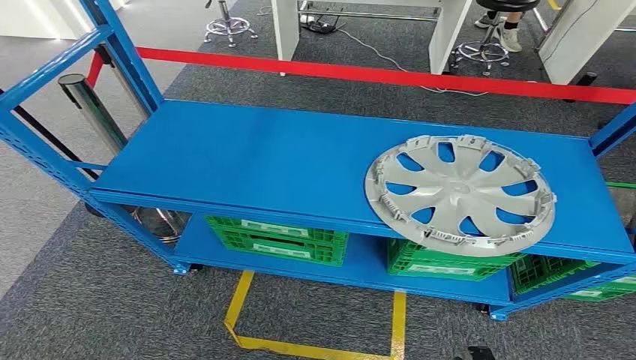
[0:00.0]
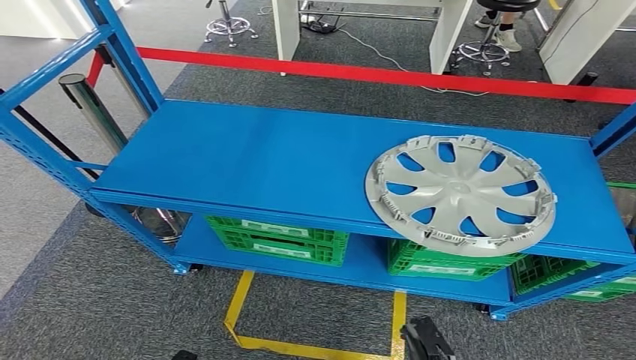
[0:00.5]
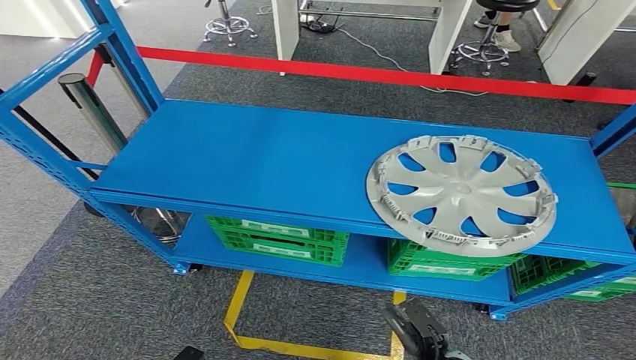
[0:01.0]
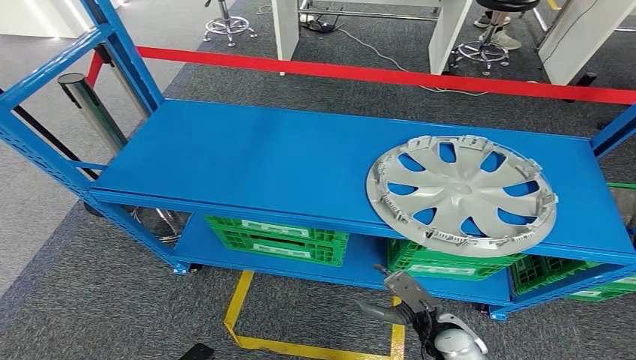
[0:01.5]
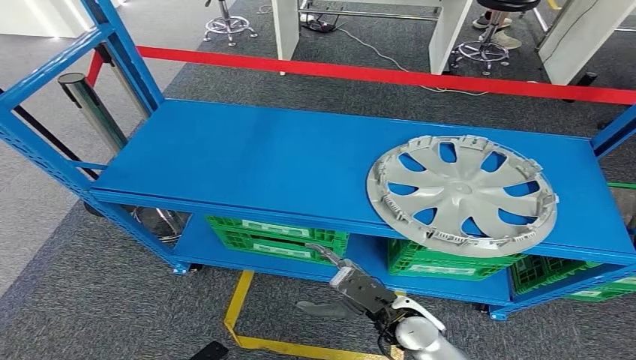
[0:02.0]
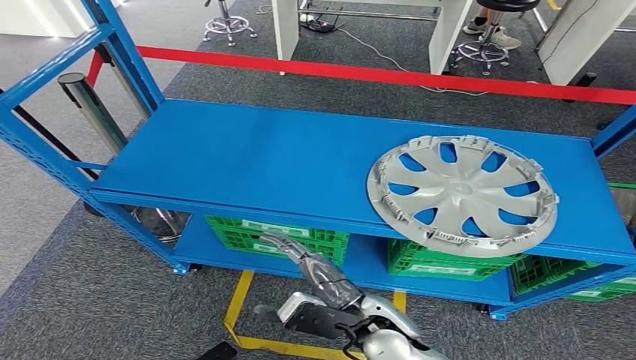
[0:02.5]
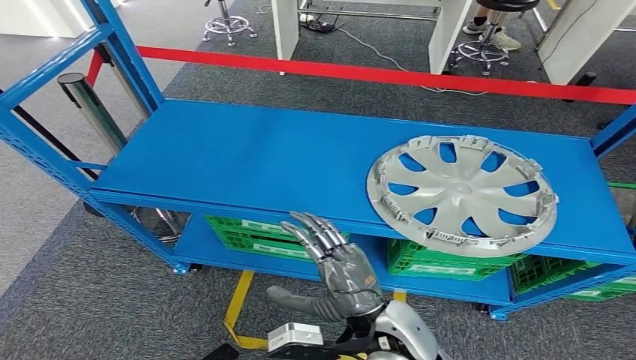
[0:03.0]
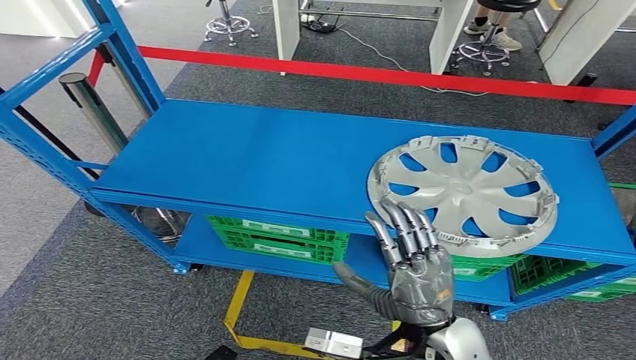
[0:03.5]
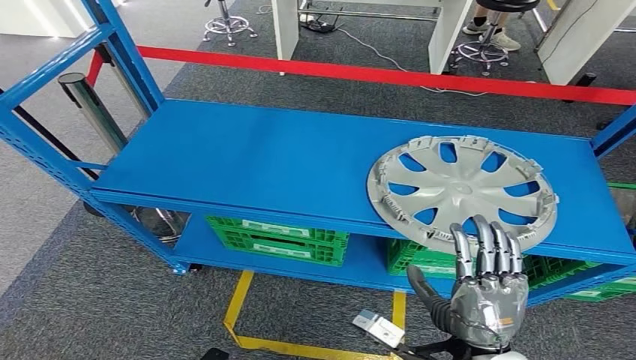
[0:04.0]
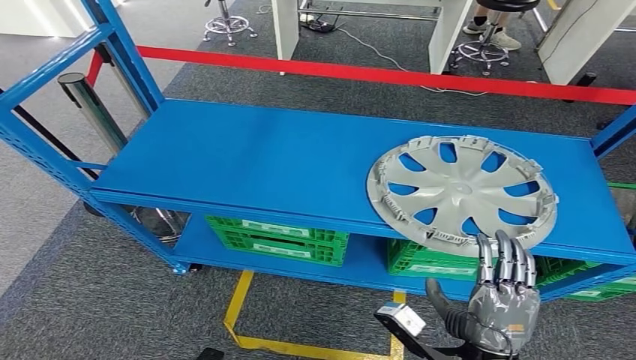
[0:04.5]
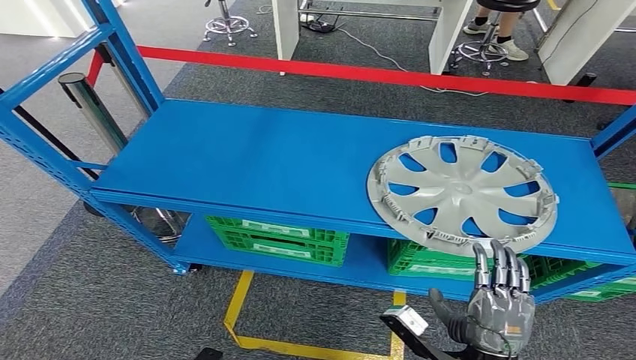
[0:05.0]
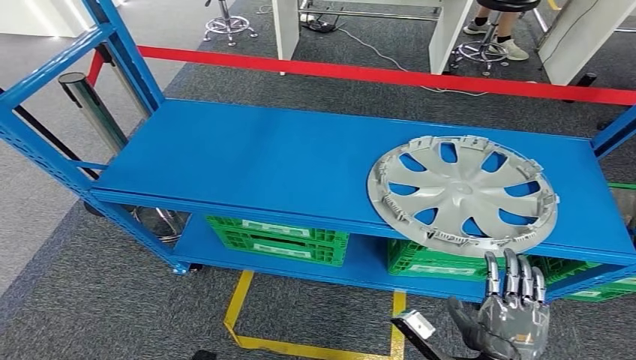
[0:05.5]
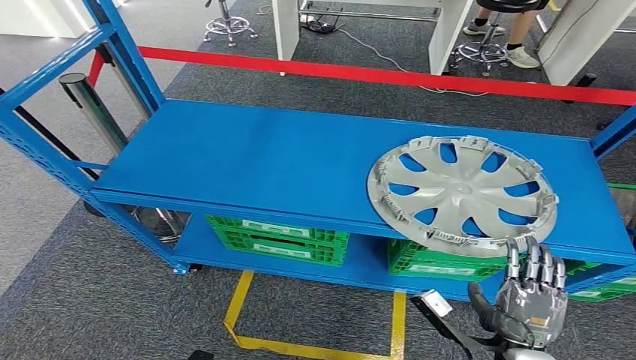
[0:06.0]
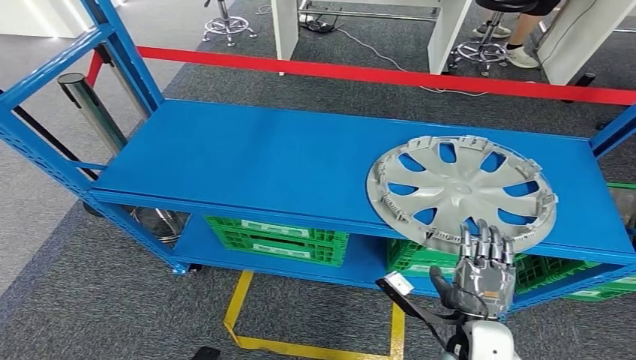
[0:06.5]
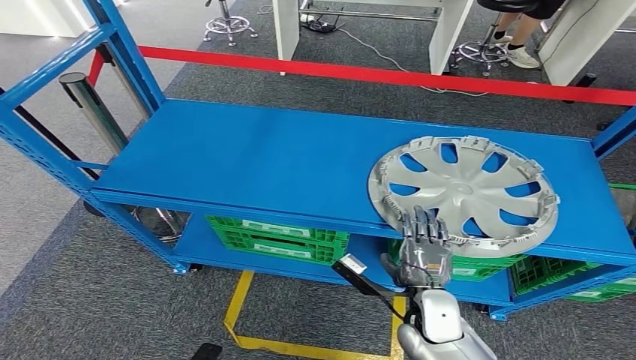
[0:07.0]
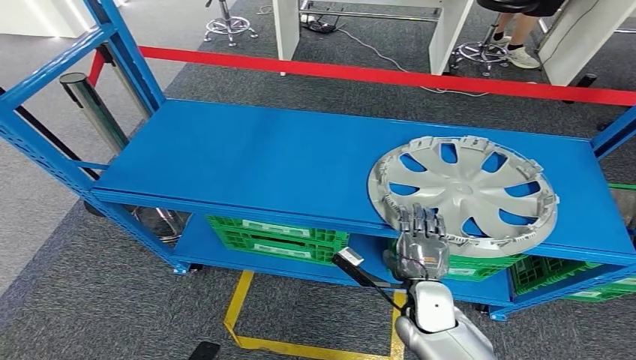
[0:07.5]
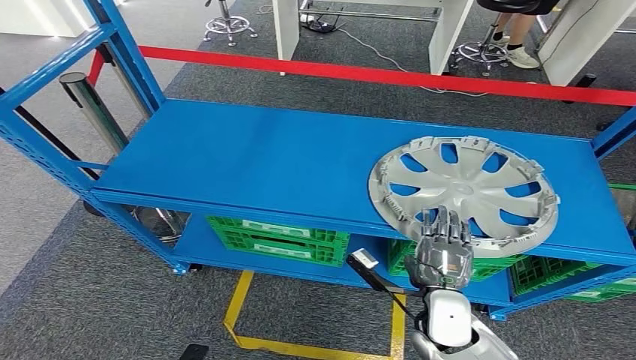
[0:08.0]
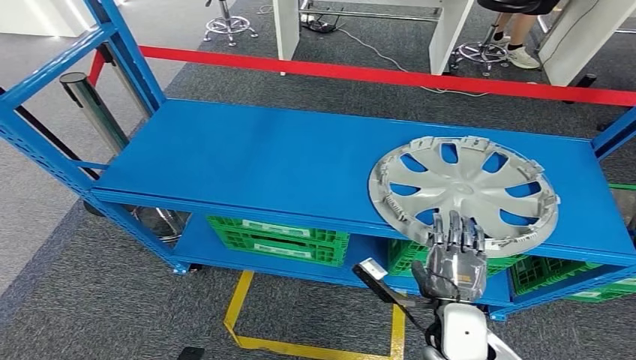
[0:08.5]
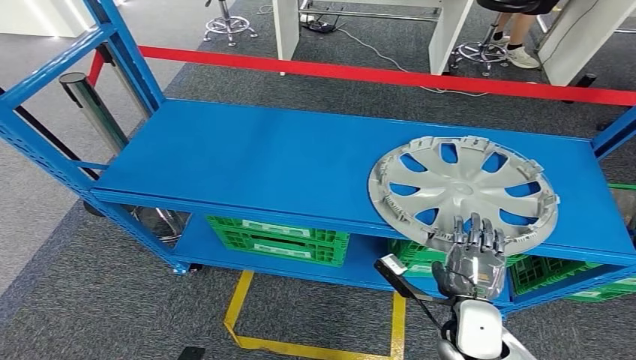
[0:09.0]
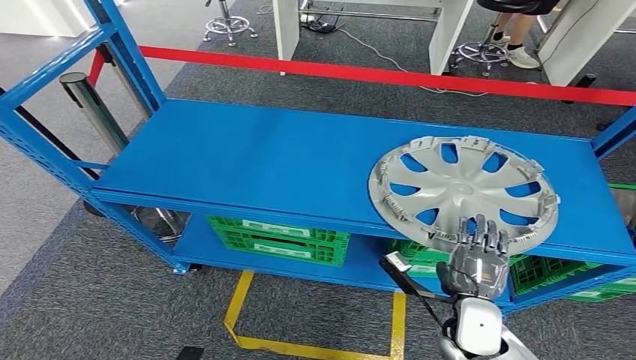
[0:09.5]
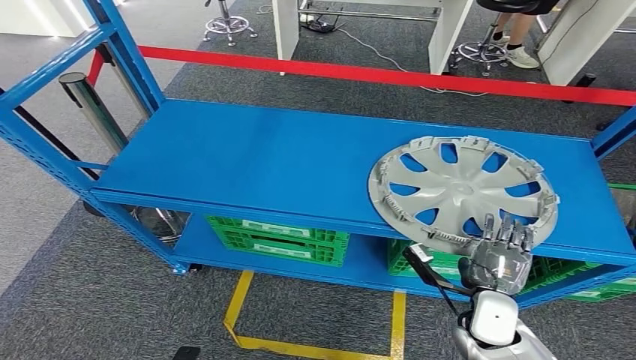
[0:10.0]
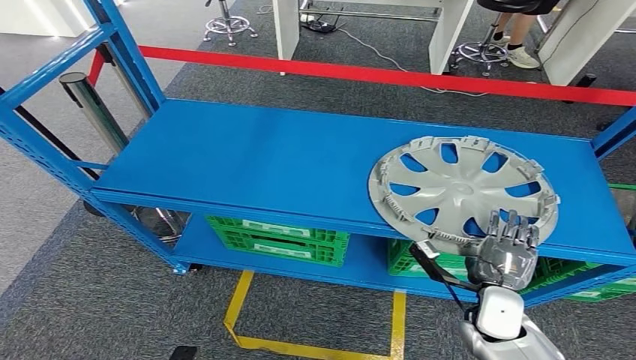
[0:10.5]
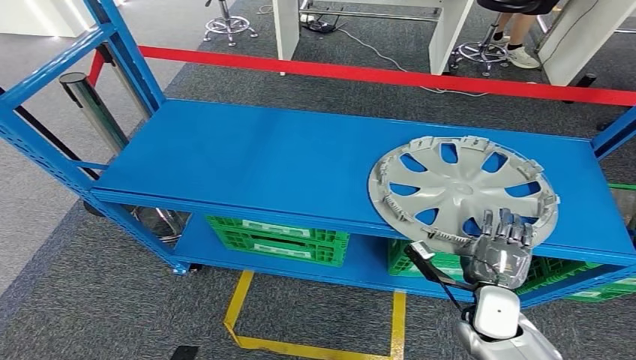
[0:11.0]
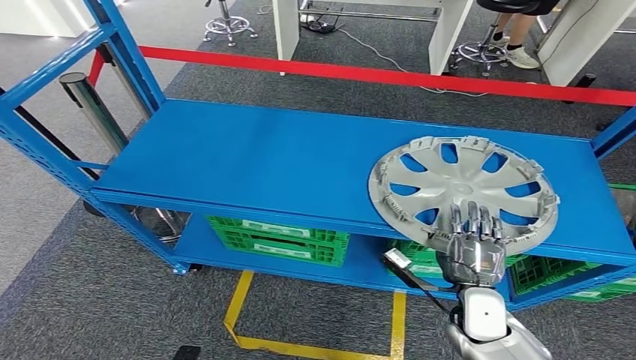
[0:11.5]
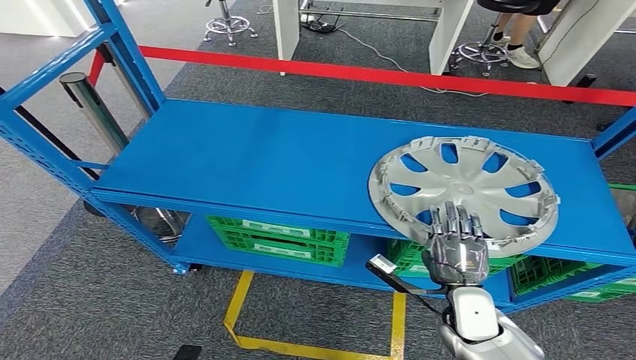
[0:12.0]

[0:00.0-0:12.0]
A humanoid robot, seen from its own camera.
0:02.0 to 0:04.0: The right hand moves upward and backward, some 15 cm.
0:04.0 to 0:06.0: The right hand is displaced downward and to the right by roughly 10 cm.
0:06.0 to 0:08.0: The right hand moves forward and to the left, about 10 cm.
0:08.0 to 0:10.0: The right hand goes some 10 cm to the right.
0:10.0 to 0:12.0: The hands stay close to where they were, moving slightly.

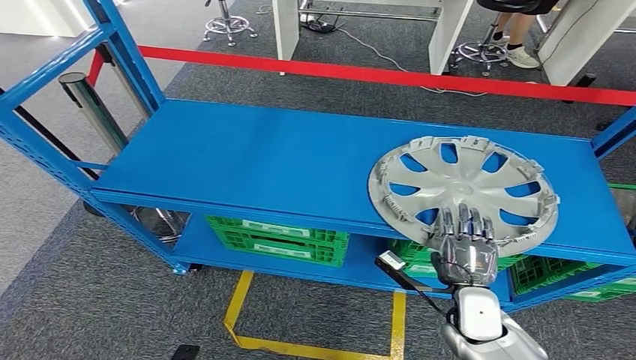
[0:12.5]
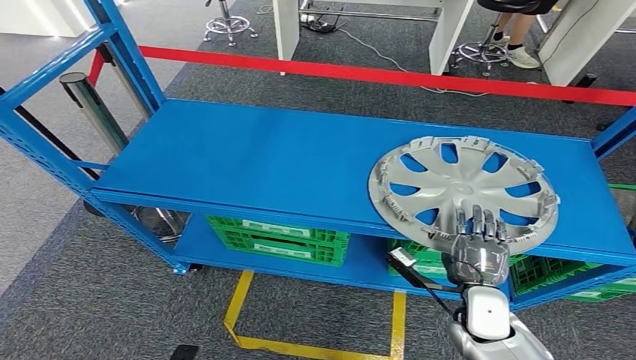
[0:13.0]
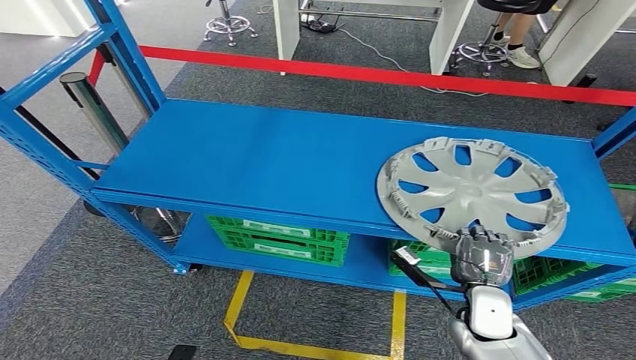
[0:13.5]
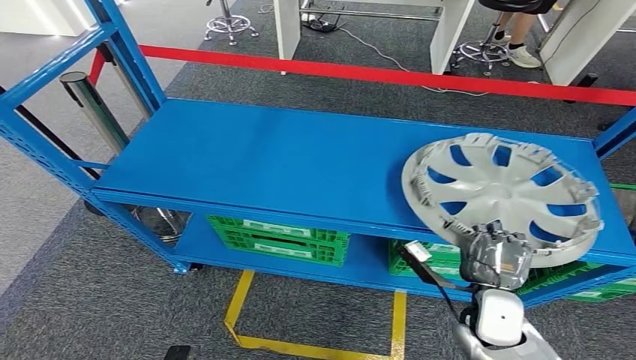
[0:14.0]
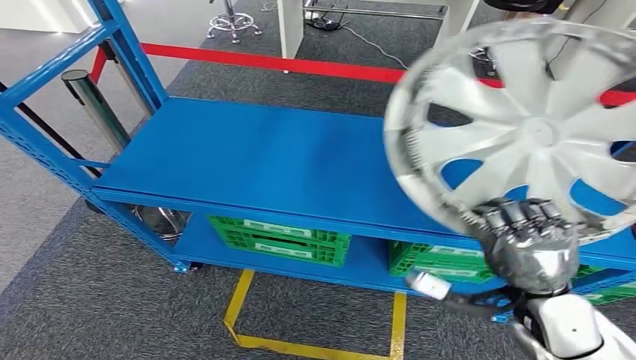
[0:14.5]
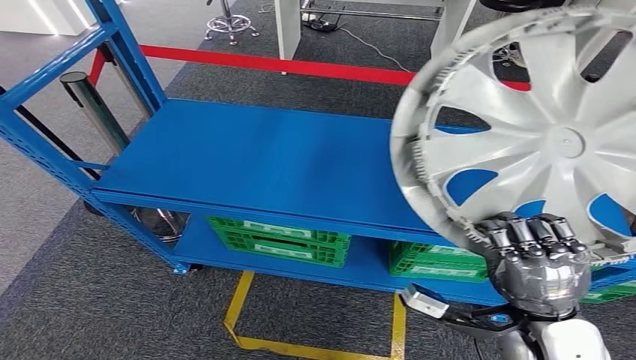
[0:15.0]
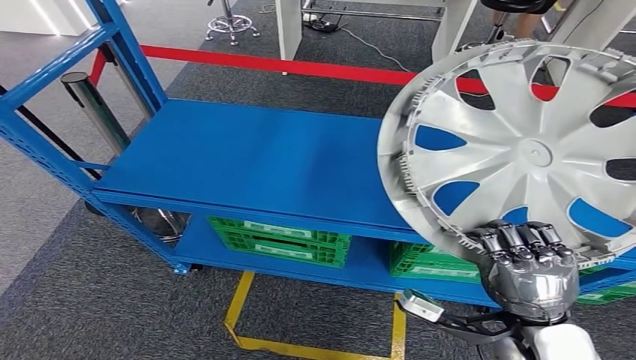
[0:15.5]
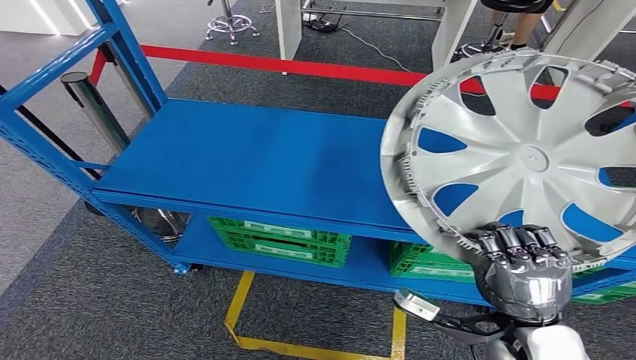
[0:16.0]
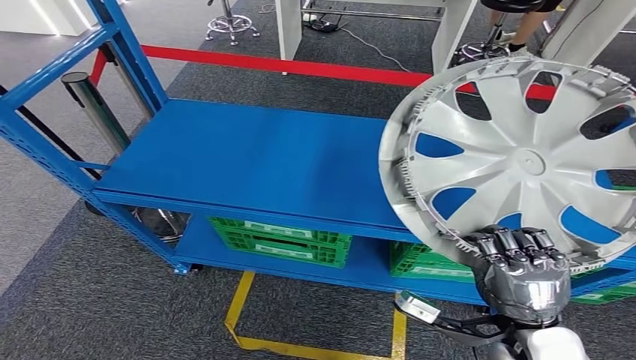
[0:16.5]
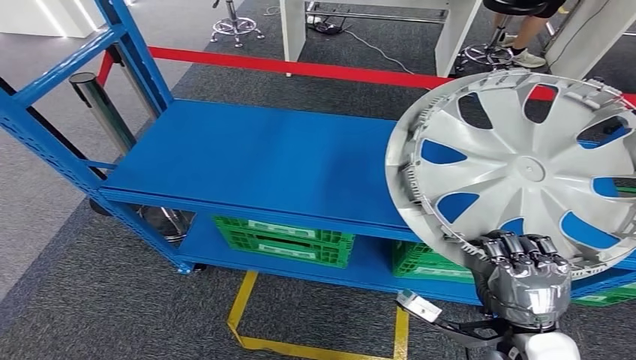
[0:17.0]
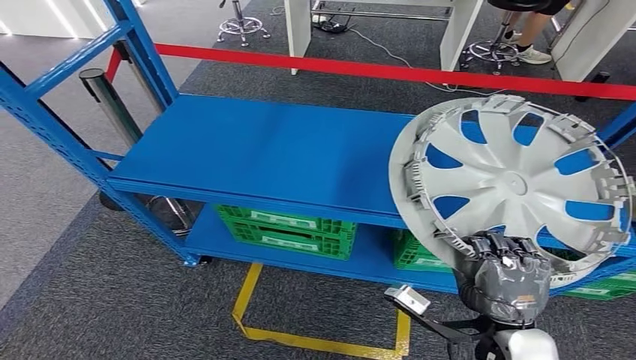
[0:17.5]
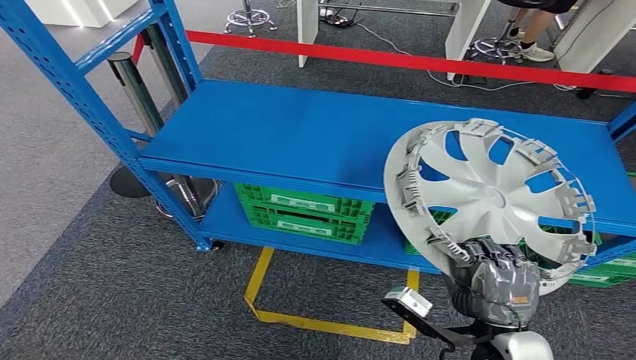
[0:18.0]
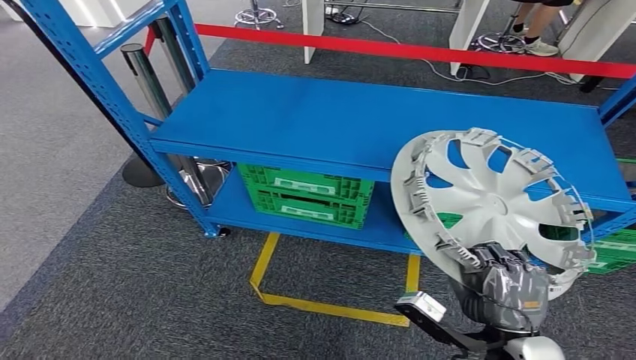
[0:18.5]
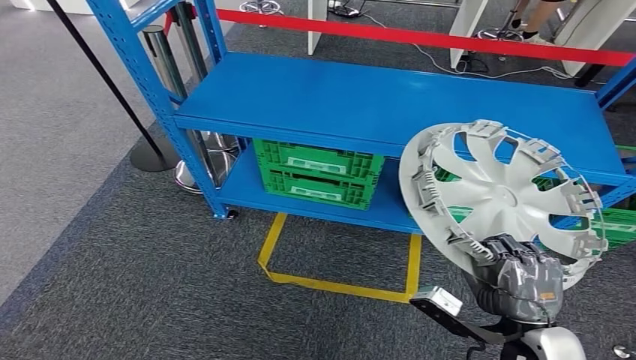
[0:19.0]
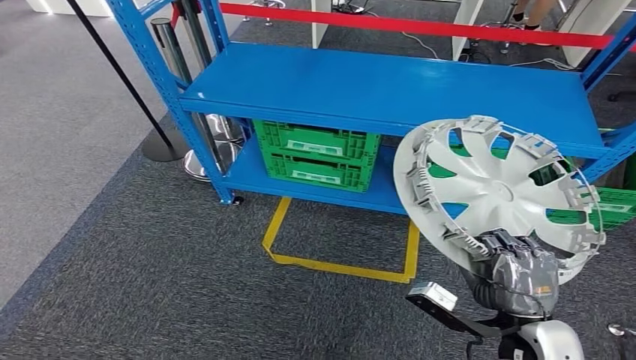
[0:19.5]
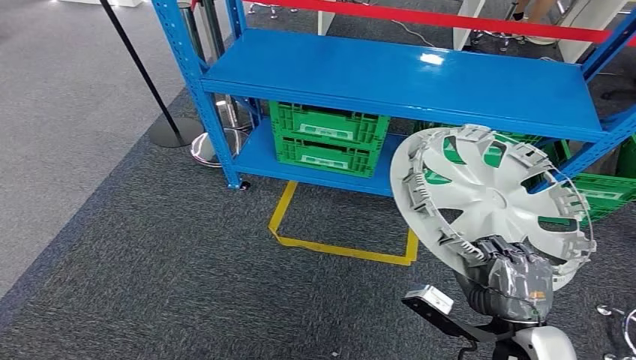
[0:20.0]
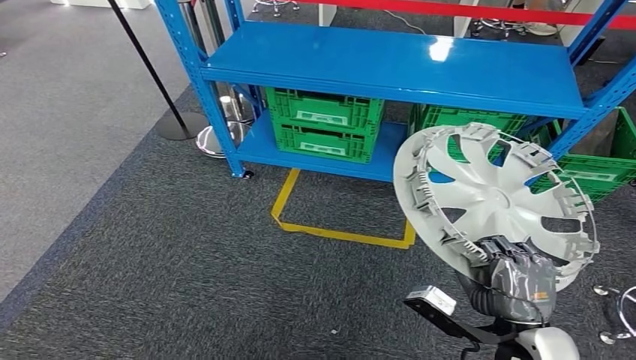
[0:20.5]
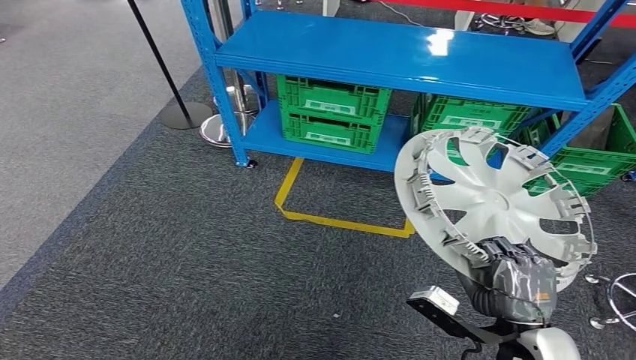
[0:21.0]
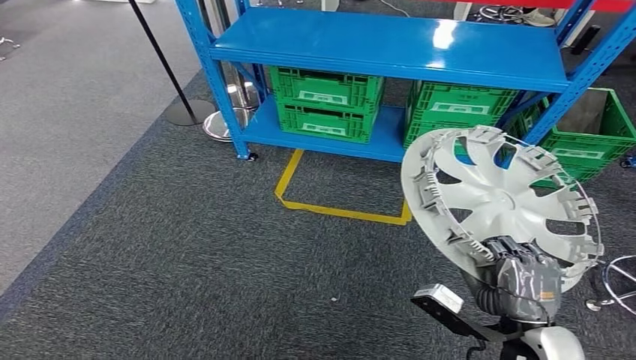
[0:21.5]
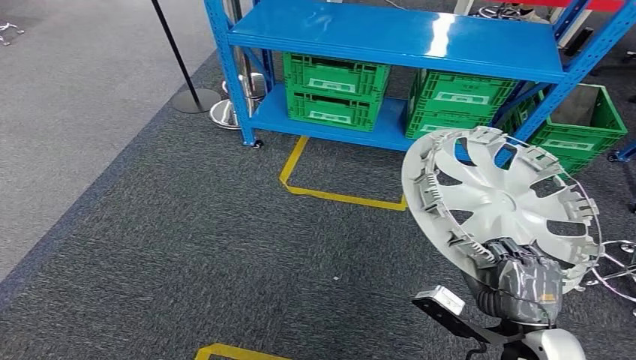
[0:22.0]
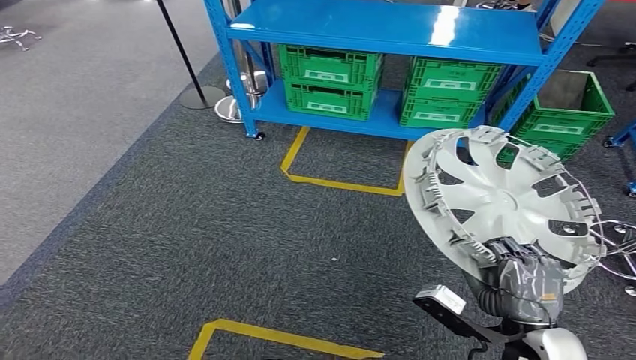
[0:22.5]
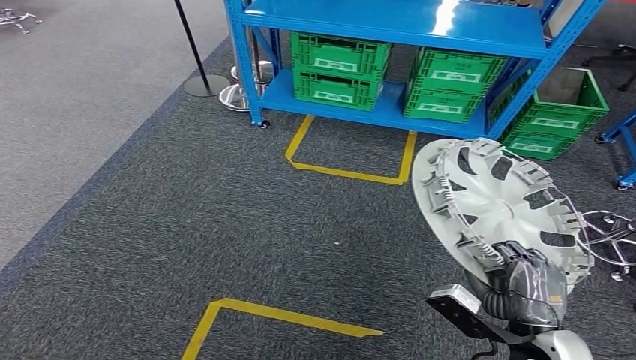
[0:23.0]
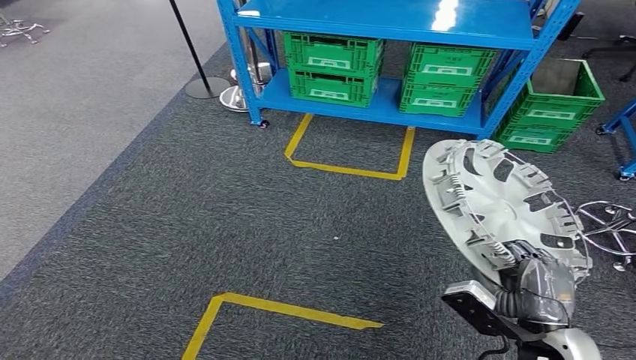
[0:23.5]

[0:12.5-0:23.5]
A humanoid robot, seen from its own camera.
Step, 0:12.5 to 0:16.0: Pick up the small parts from the shelf.
